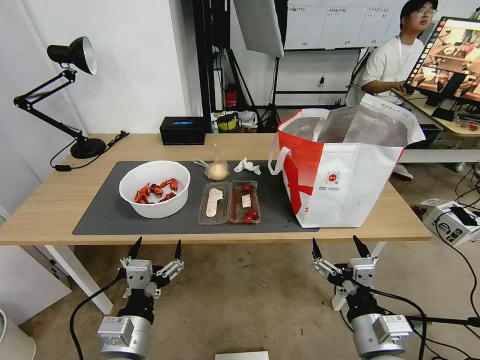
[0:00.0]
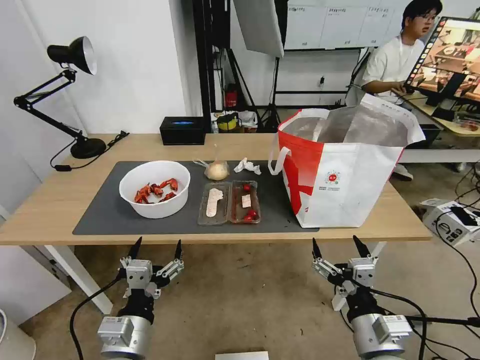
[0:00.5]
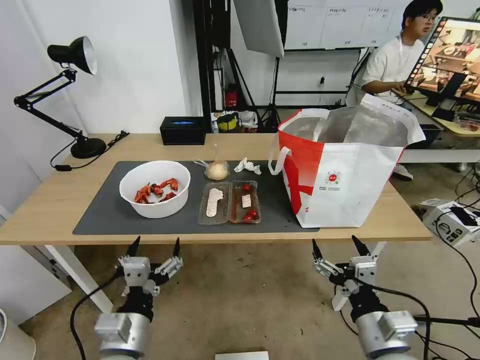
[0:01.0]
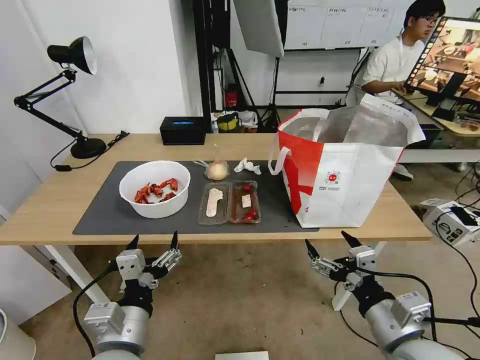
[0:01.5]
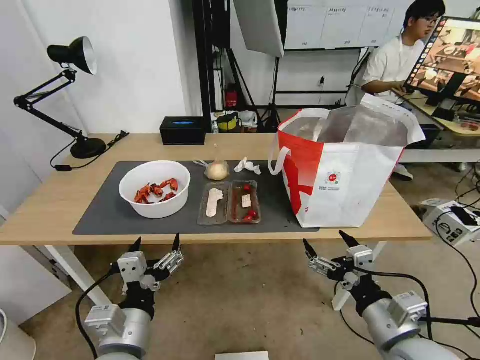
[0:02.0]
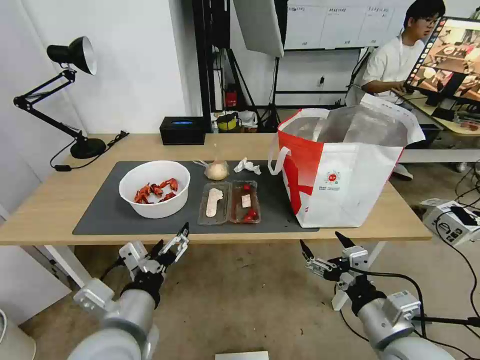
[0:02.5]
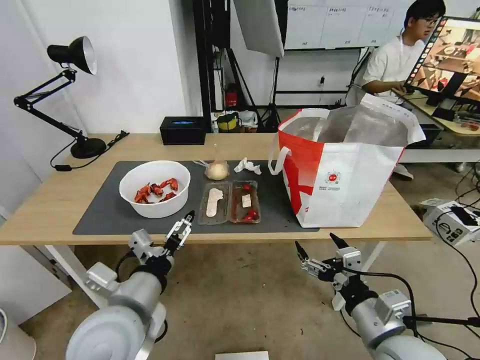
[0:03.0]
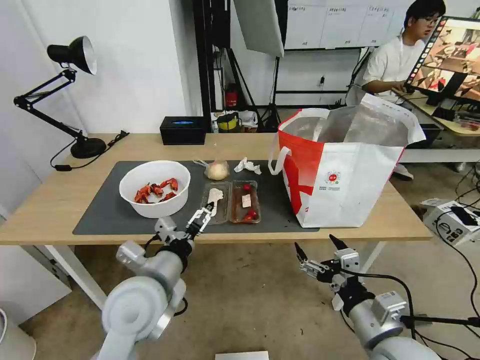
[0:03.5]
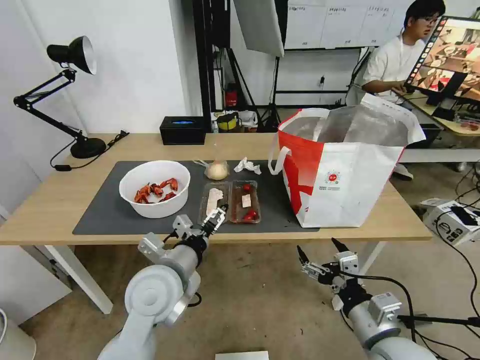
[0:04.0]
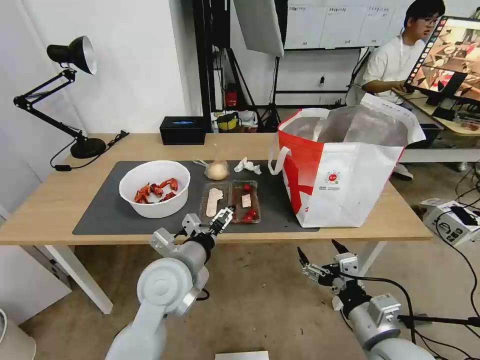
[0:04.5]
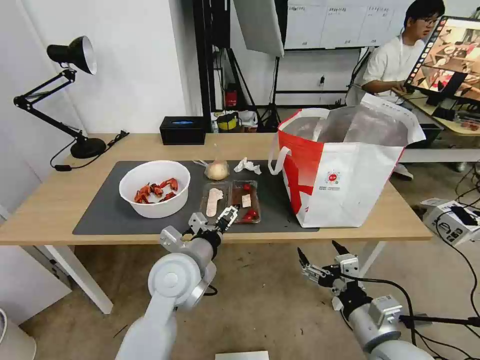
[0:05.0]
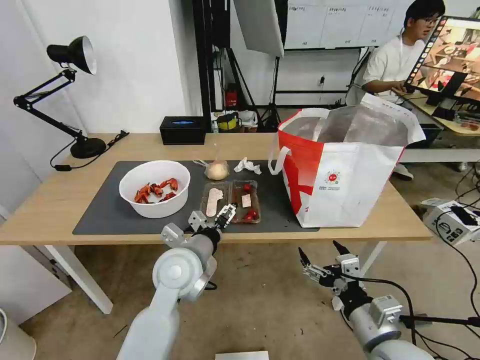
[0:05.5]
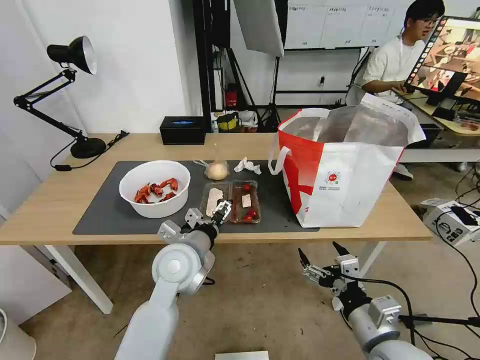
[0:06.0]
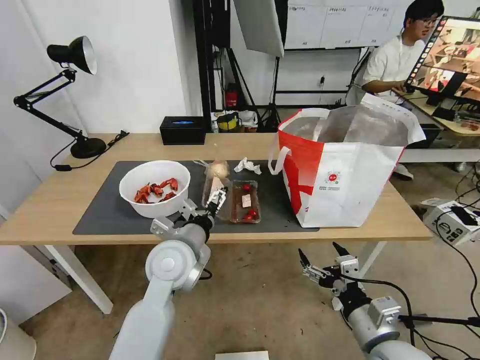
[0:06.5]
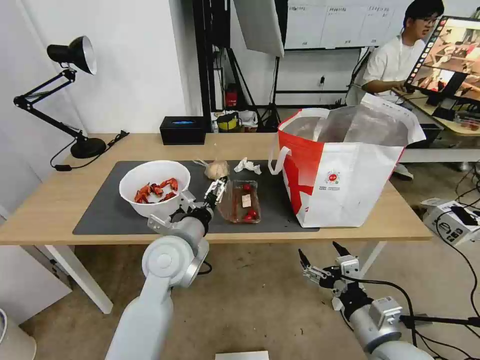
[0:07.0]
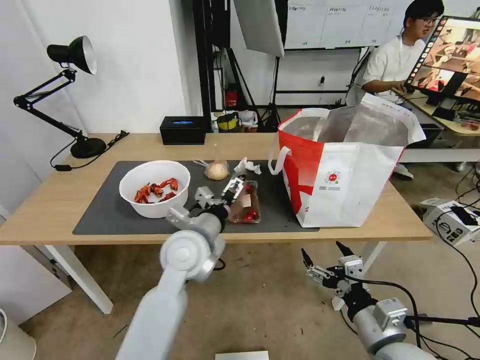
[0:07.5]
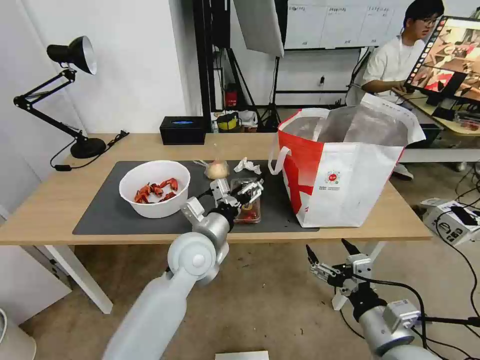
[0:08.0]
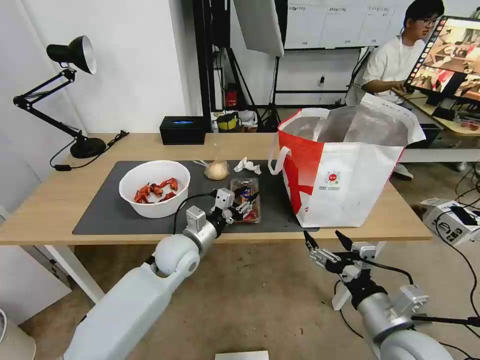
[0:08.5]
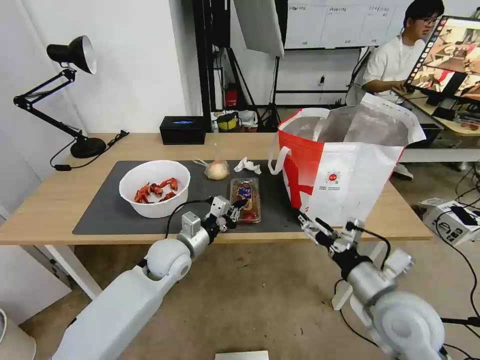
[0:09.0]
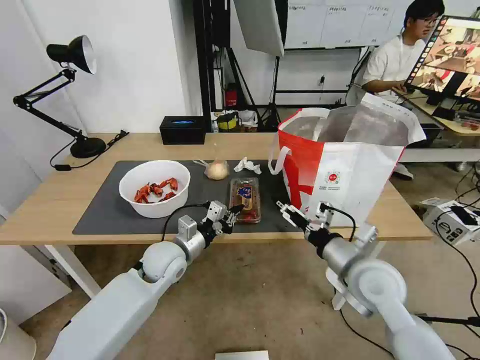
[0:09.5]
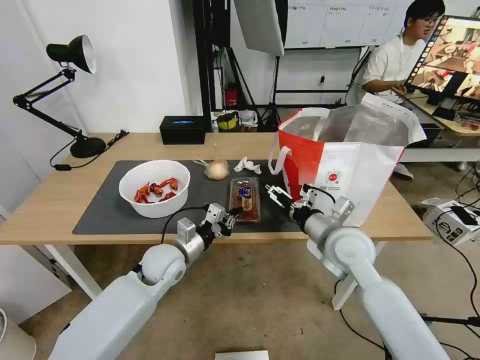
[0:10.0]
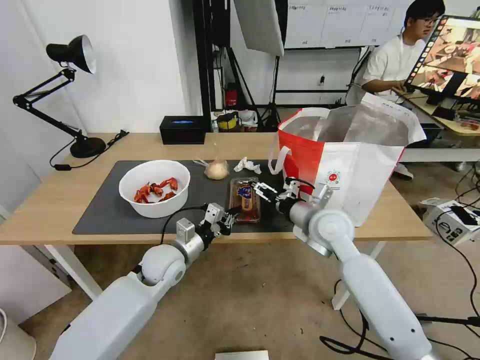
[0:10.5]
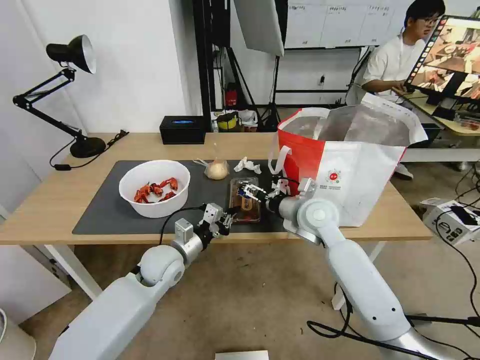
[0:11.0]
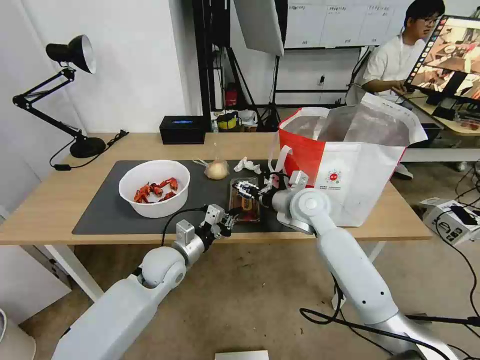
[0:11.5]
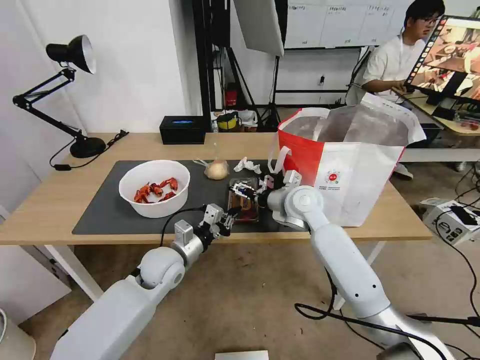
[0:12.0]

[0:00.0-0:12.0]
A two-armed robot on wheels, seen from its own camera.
Task of the whole recording: Pick up the trash from the table and place it into the takeout bag.
2.0 to 4.0 s: The left gripper goes about 15 cm forward.
4.0 to 6.0 s: The left gripper goes roughly 5 cm forward.
8.0 to 10.0 s: The left gripper shifts some 10 cm downward and to the left, and closes up, while the right gripper shifts roughly 20 cm forward.
10.0 to 12.0 s: The right gripper heads forward and to the left, covering about 15 cm.

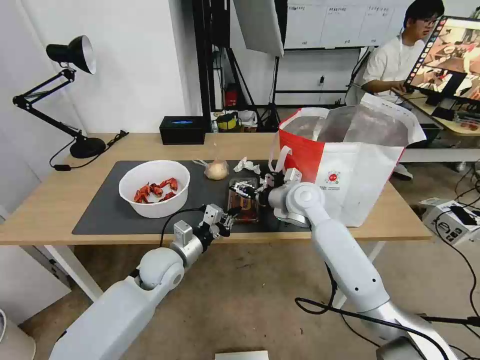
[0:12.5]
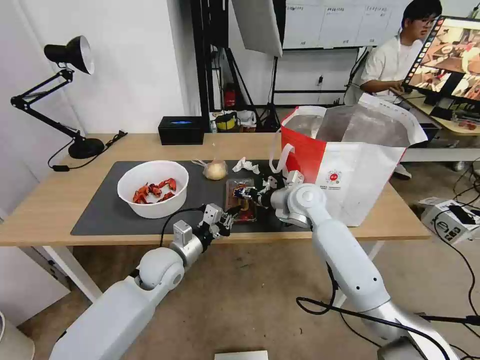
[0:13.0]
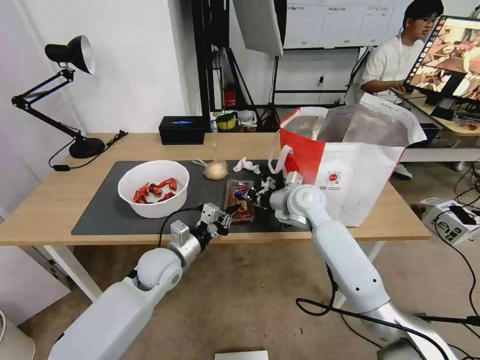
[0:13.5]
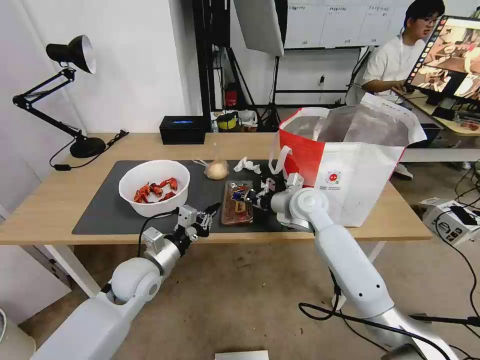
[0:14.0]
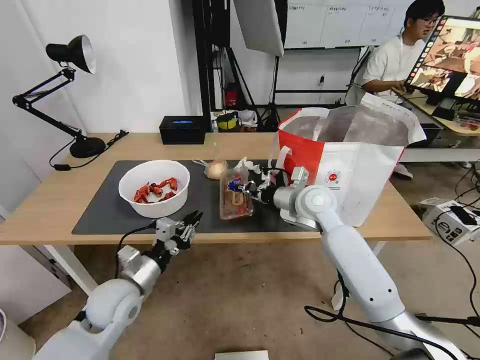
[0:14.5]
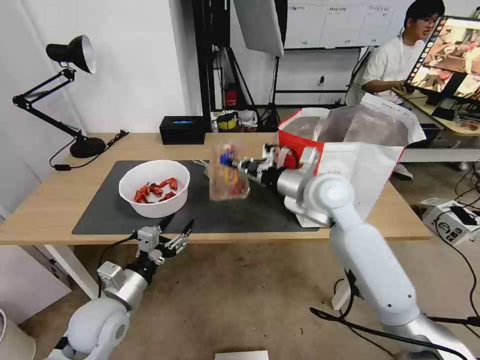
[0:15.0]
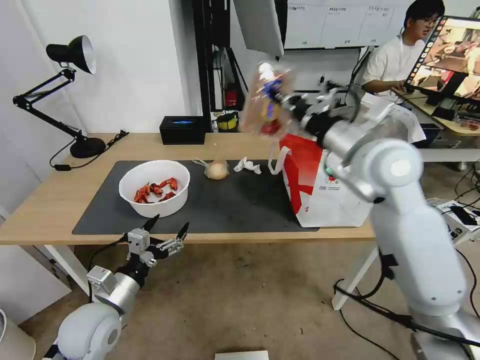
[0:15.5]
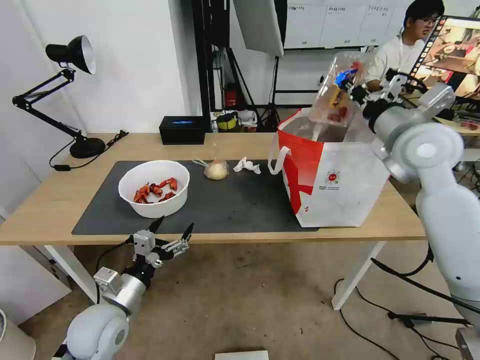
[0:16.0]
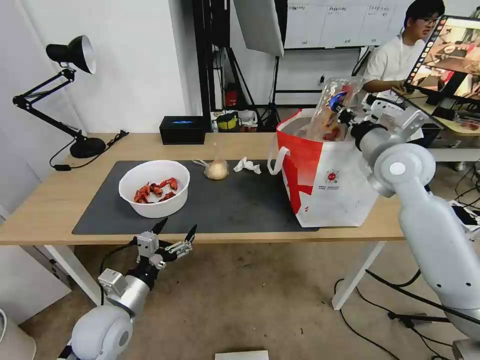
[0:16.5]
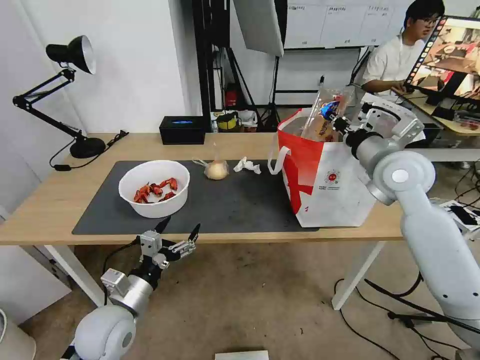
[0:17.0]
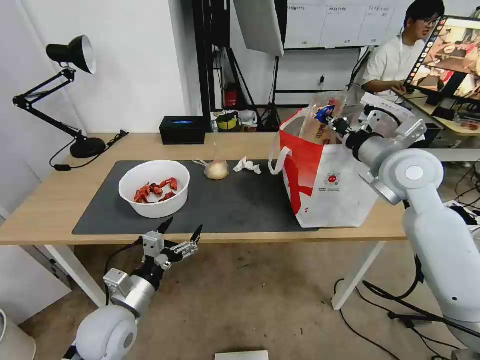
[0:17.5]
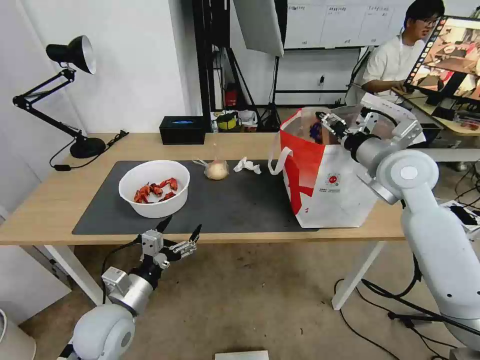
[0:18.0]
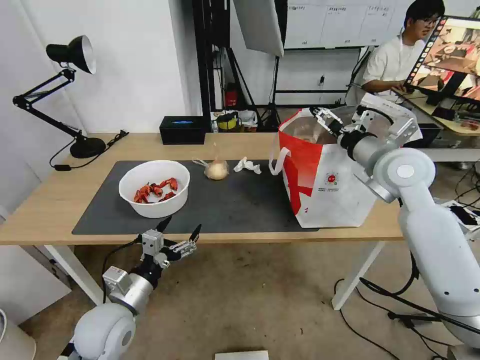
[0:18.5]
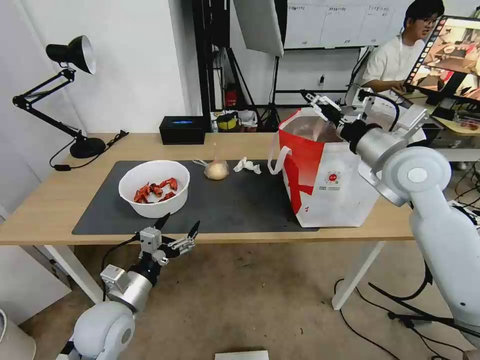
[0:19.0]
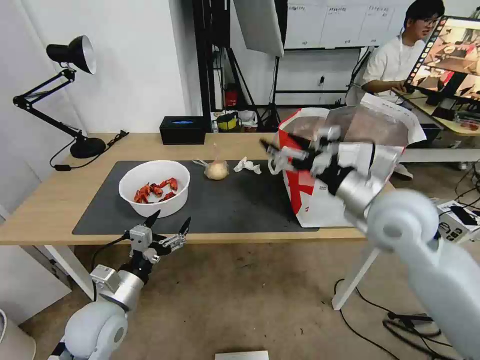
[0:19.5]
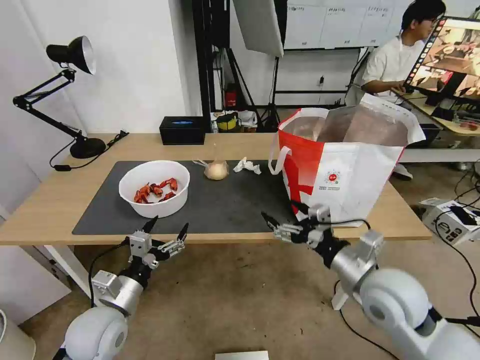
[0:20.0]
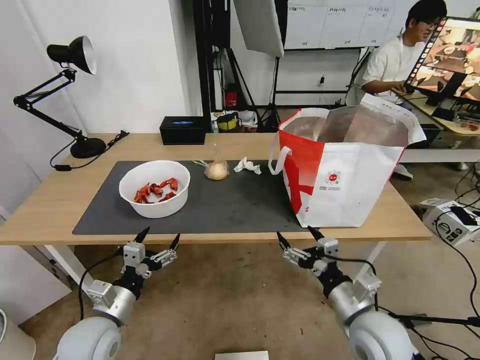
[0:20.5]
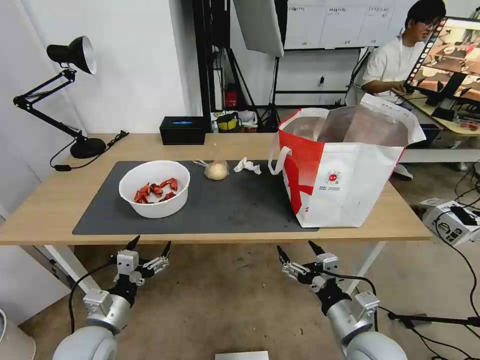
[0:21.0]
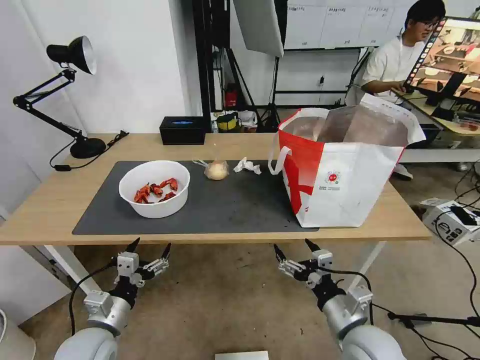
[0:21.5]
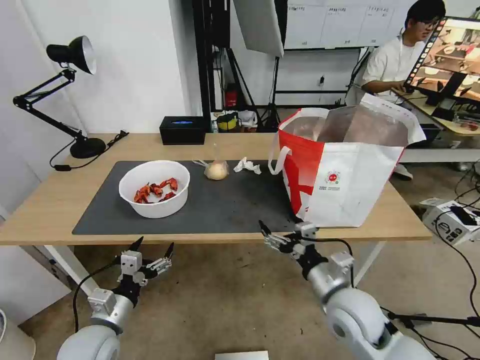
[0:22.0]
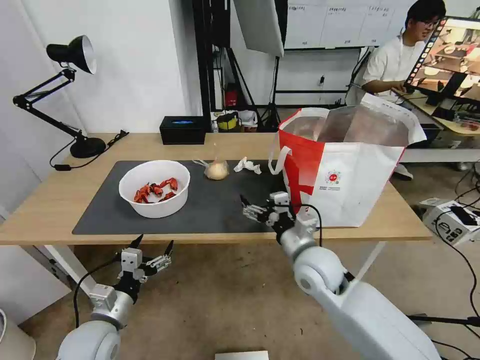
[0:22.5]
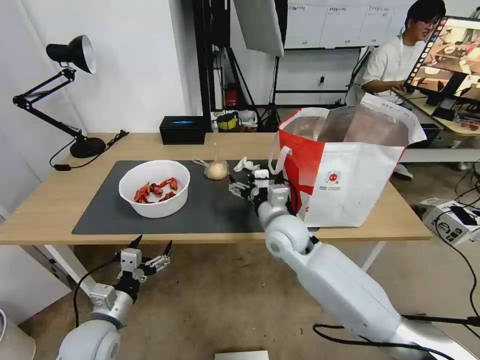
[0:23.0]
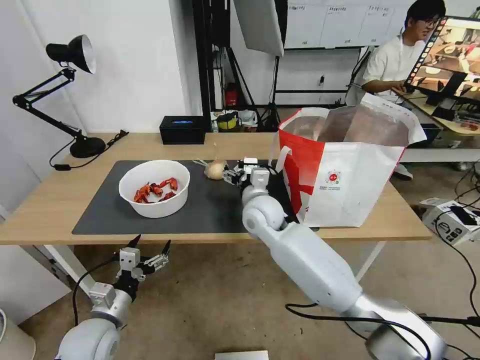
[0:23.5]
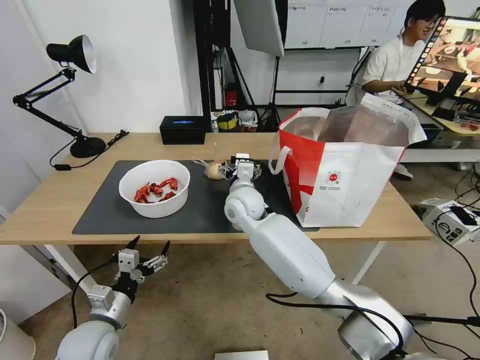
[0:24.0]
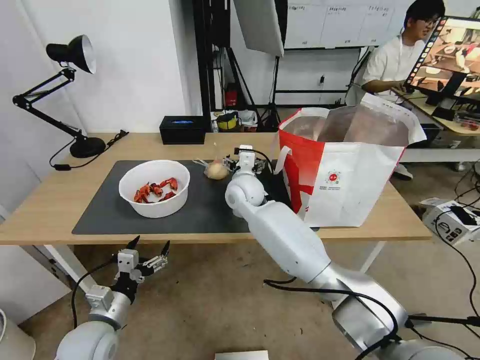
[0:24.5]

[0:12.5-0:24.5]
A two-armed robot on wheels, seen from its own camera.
Task of the whole recording: Pick up the trash from the table and place it into the takeout bag.
12.5 to 14.5 s: The left gripper shifts some 10 cm backward and to the left; the right gripper closes its fingers.
14.5 to 16.5 s: The right gripper is displaced to the right and upward by approximately 20 cm. The left gripper travels backward by approximately 5 cm, and opens up.
16.5 to 18.5 s: The right gripper opens up.
18.5 to 20.5 s: The right gripper goes some 30 cm backward and downward.
20.5 to 22.5 s: The right gripper heads forward and to the left, covering about 15 cm.
22.5 to 24.5 s: The right gripper shifts approximately 25 cm forward and to the left.

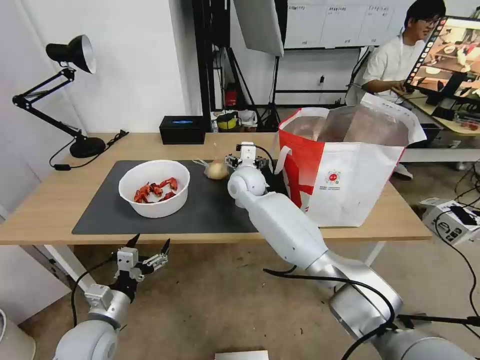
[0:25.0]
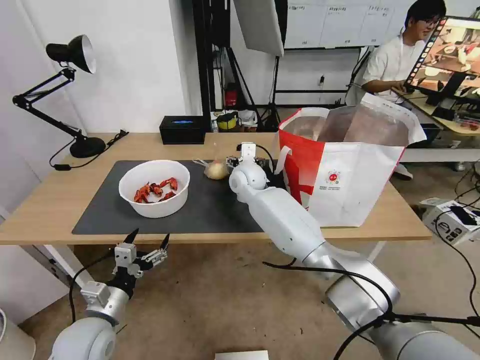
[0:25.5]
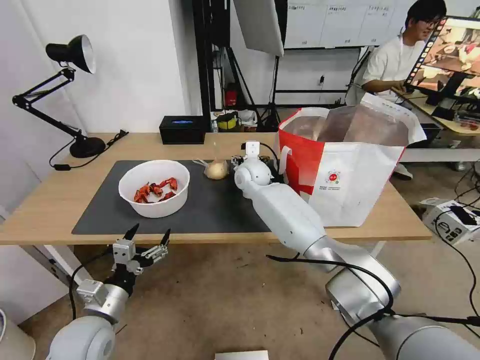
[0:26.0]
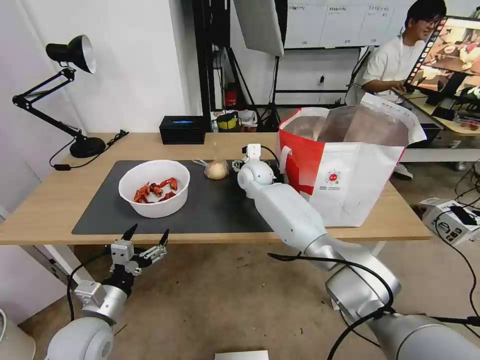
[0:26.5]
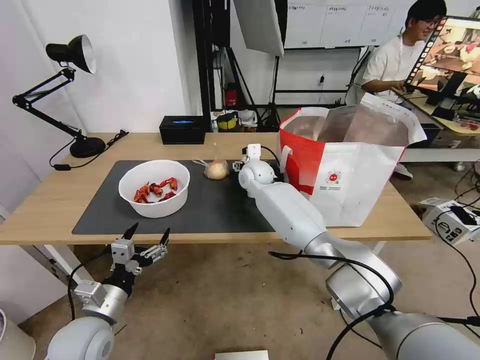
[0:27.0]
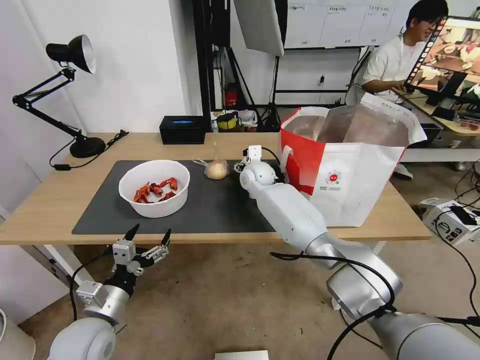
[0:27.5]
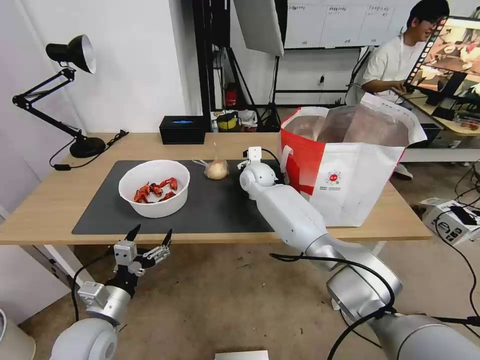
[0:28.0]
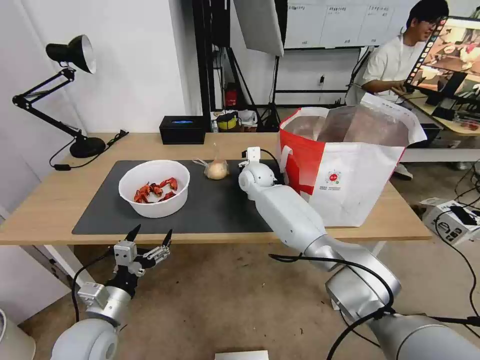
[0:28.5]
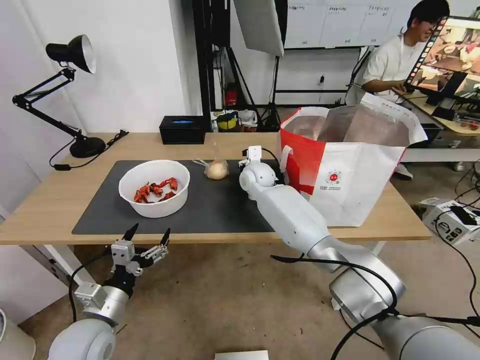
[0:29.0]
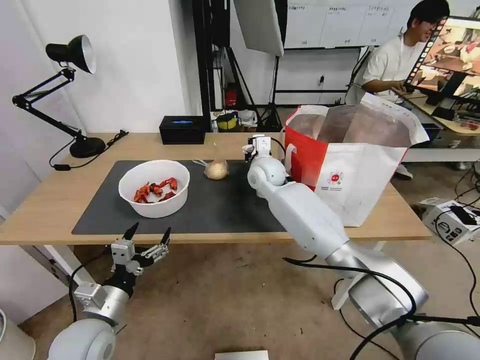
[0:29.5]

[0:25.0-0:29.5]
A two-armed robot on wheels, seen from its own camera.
Task of the whole recording: Pick up the trash from the table and place it into the takeout bag.
25.0 to 27.0 s: The right gripper travels forward by approximately 5 cm.
27.0 to 29.5 s: The right gripper ends up roughly 5 cm from where it was, and closes.
